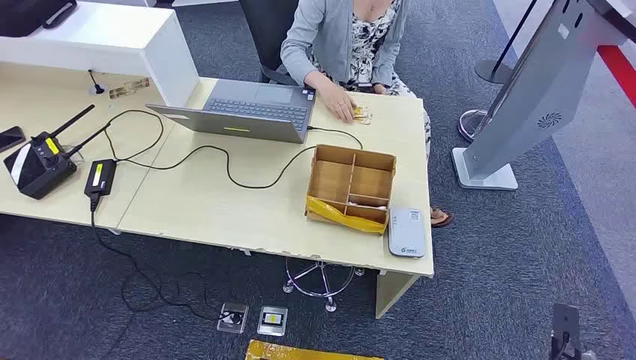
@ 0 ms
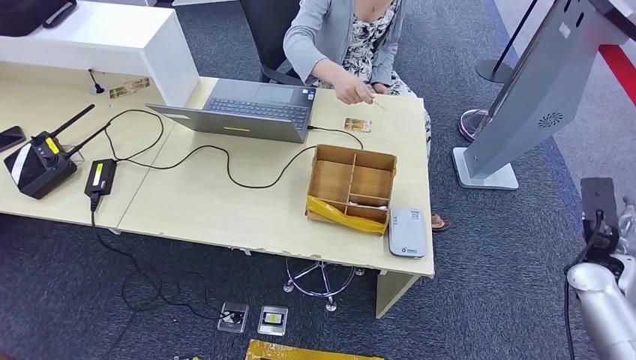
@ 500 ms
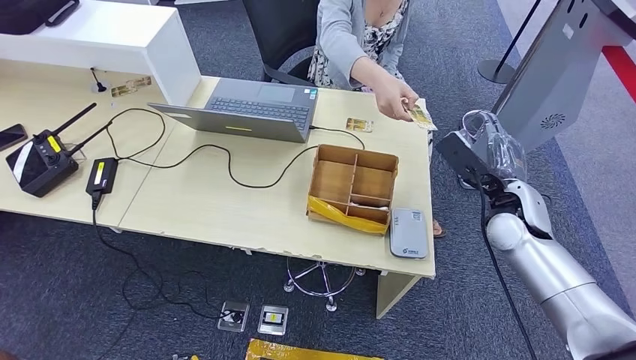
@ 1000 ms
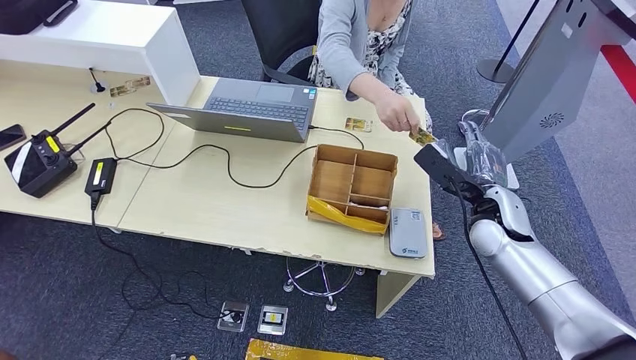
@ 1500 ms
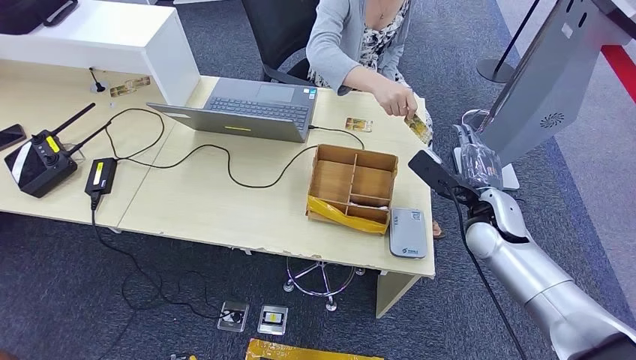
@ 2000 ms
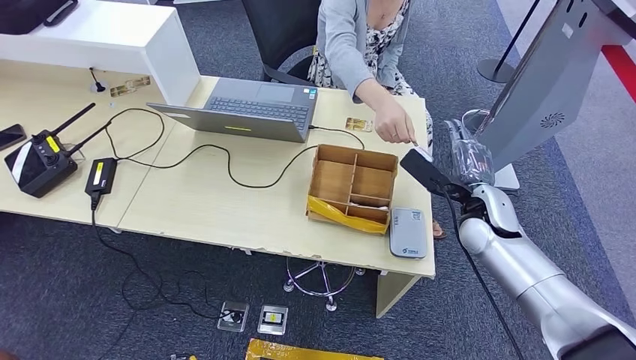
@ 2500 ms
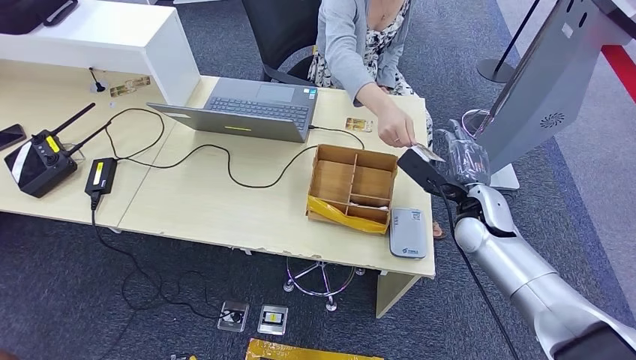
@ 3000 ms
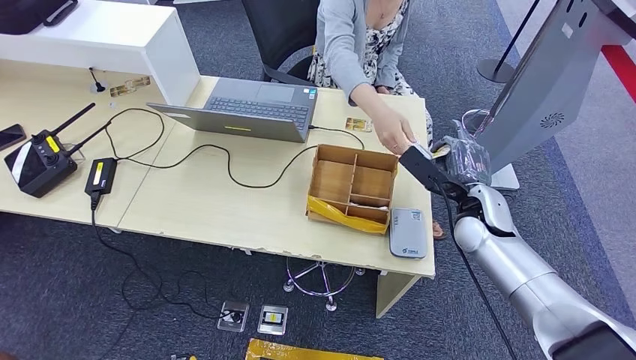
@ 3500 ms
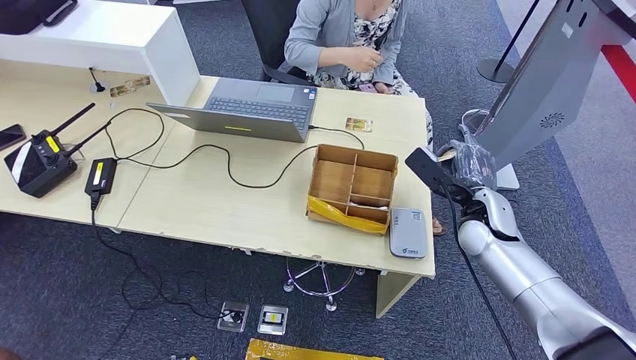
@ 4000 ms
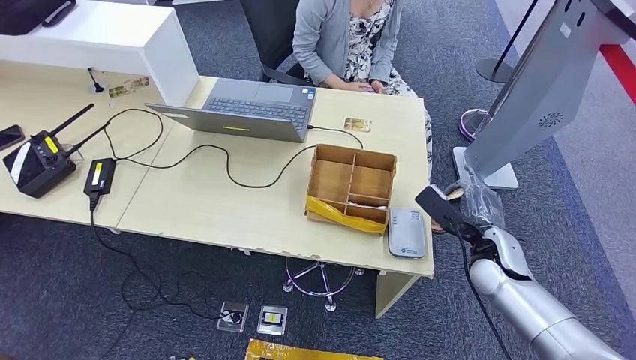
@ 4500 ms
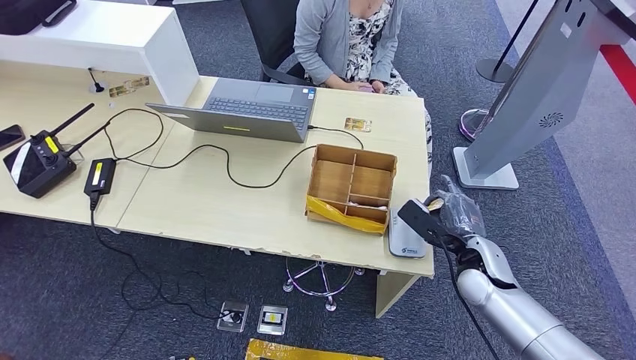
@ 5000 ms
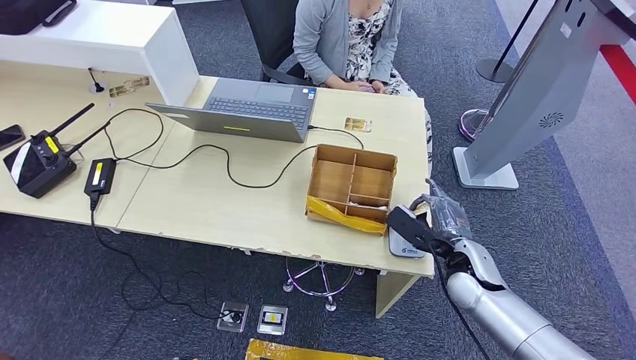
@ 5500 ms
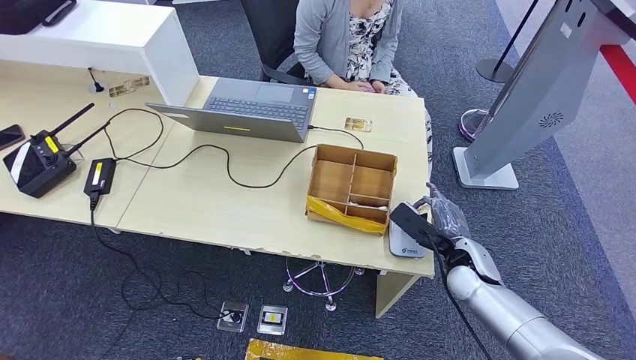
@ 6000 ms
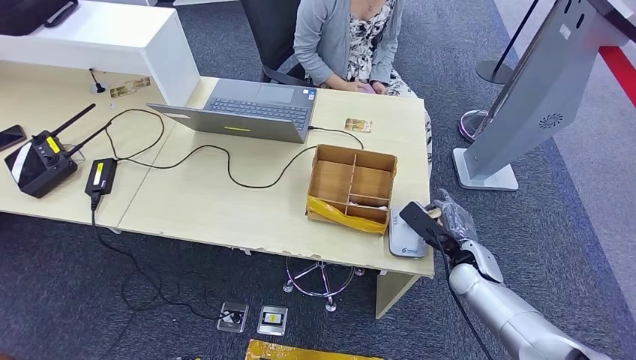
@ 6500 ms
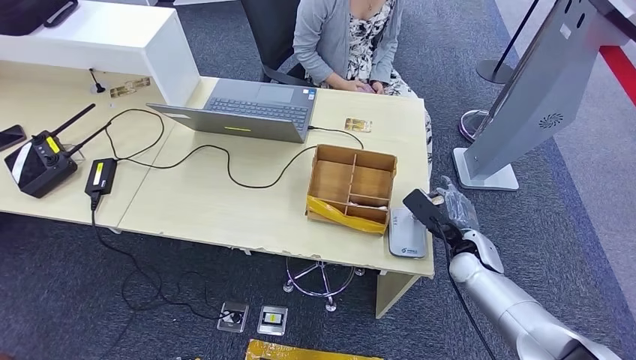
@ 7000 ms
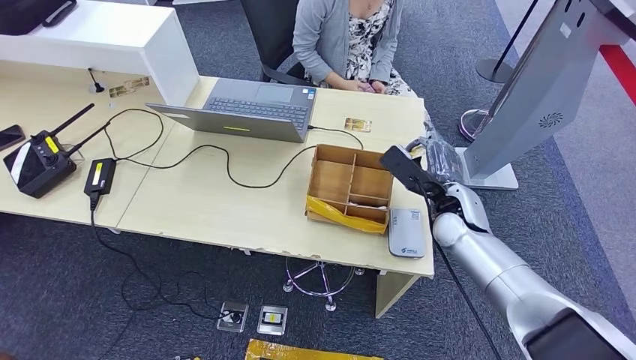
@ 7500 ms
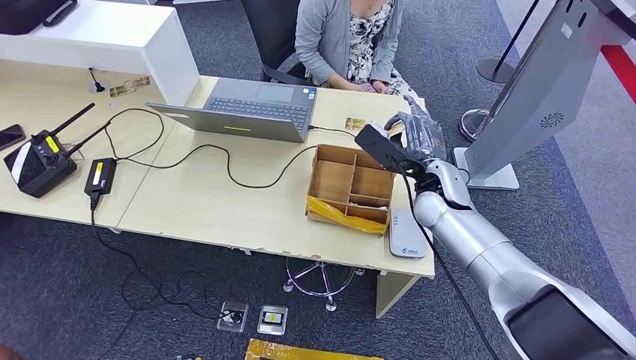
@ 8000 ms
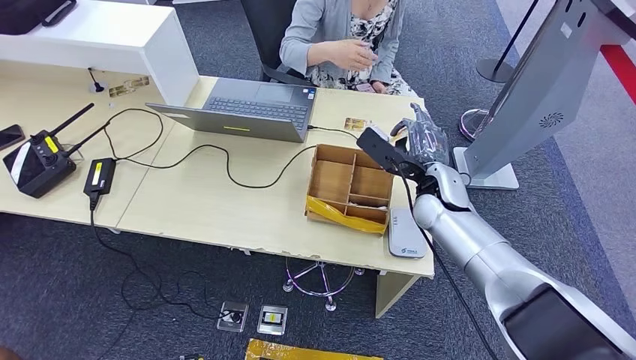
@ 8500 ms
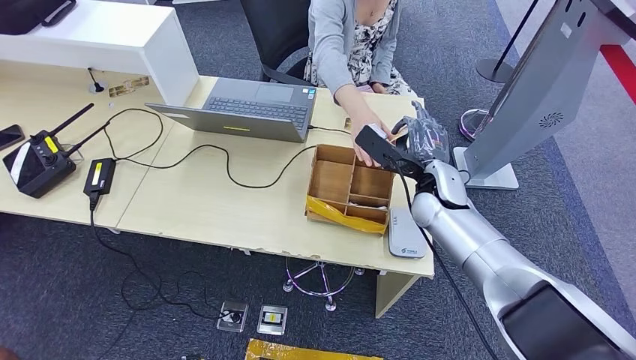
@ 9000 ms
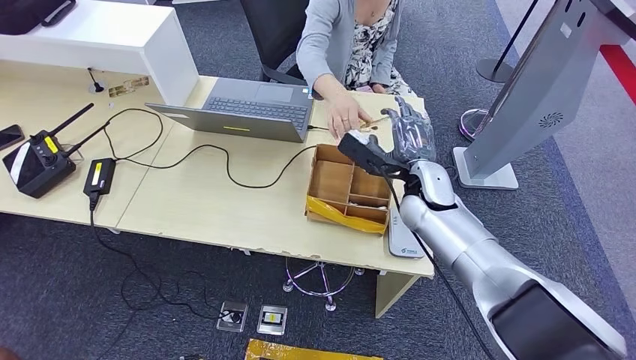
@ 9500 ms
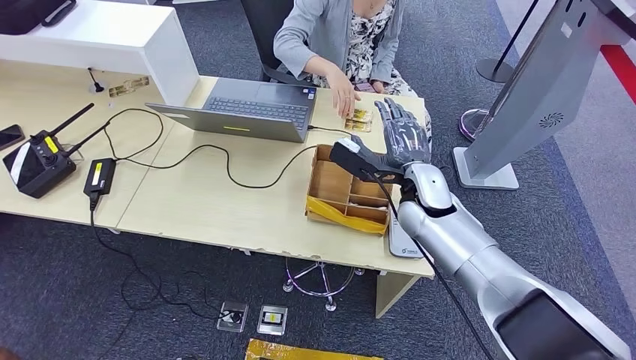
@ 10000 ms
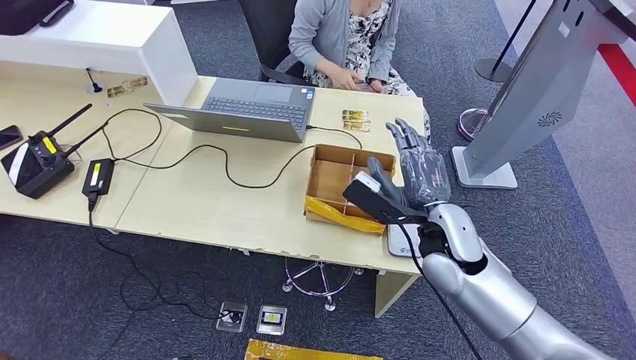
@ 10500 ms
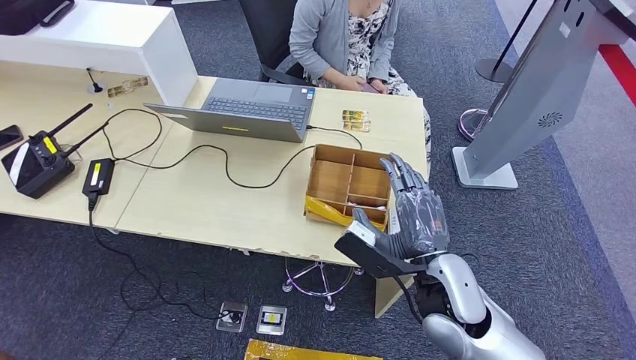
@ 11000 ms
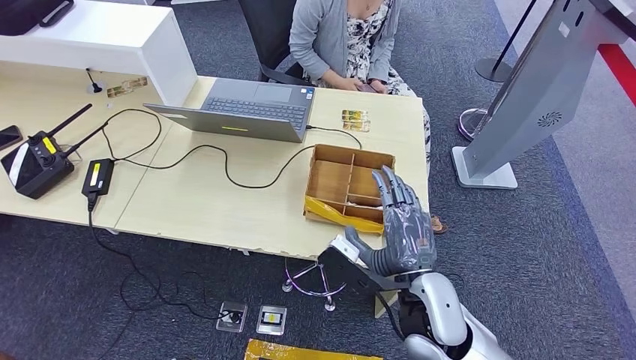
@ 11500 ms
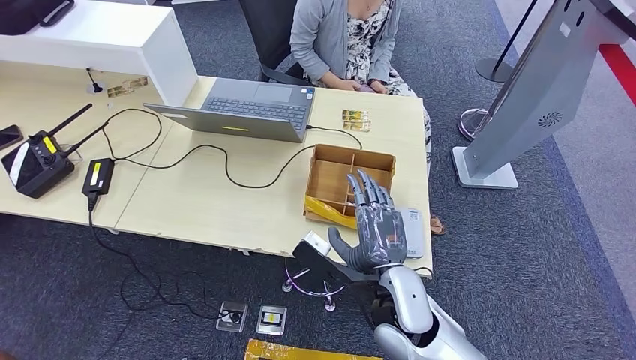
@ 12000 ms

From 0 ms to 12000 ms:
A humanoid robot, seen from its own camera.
Step, from 0 ms to 3500 ms: Take the ID card from the person's hand.
Step, from 4500 ms to 6000 ms: Place the ID card on the card reader.
Step, from 7500 ms to 9500 ms: Hand the ID card to the person.
From 2000 ms to 4000 ms: The hands stay close to where they were, moving slightly.
From 4000 ms to 6000 ms: The right hand heads downward and backward, covering roughly 10 cm.
From 6000 ms to 8000 ms: The right hand travels upward, forward and to the left by approximately 15 cm.
From 8000 ms to 10000 ms: There are only small adjustments of the hands.
From 10000 ms to 12000 ms: The right hand goes approximately 20 cm backward.

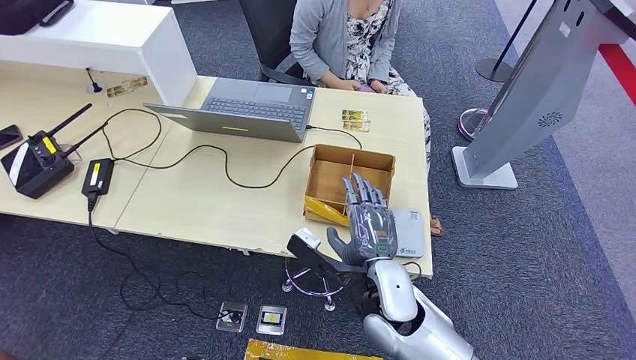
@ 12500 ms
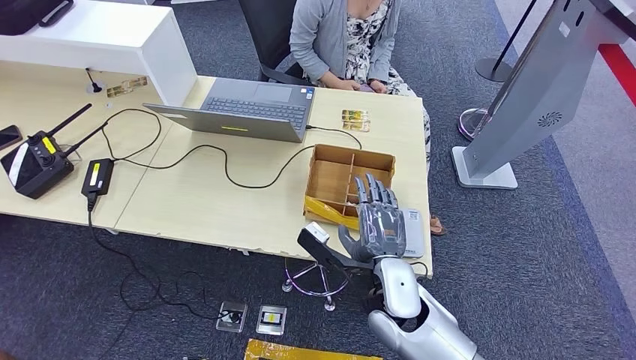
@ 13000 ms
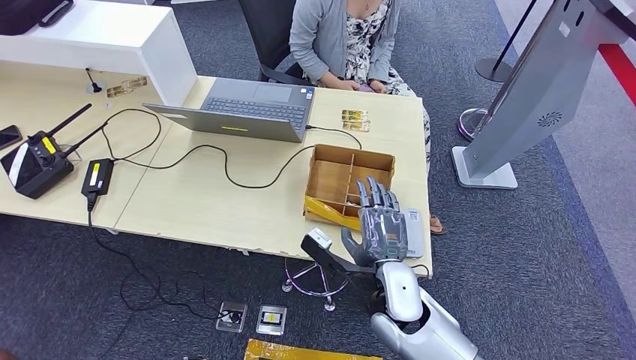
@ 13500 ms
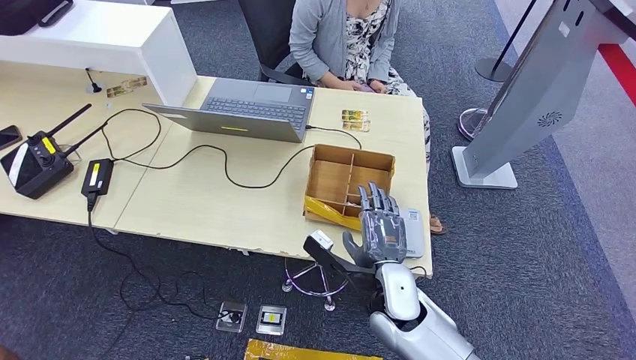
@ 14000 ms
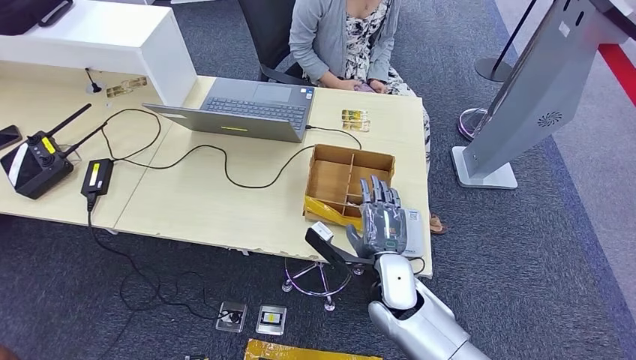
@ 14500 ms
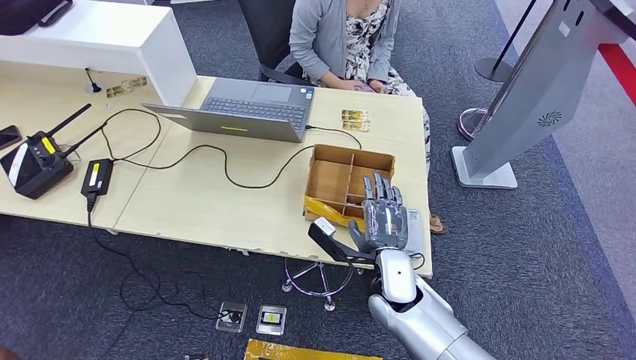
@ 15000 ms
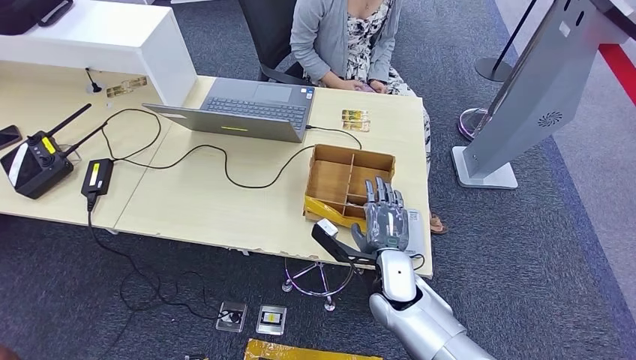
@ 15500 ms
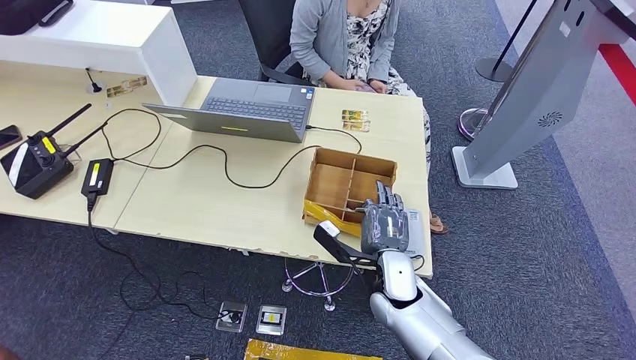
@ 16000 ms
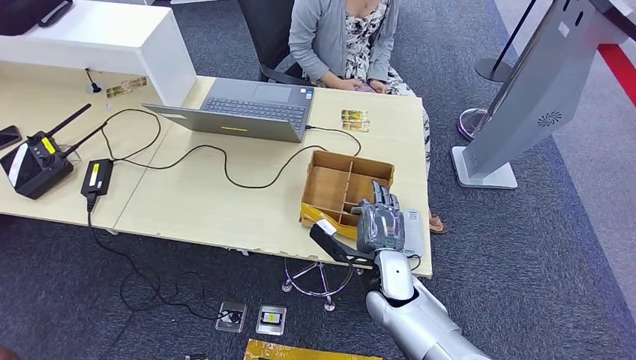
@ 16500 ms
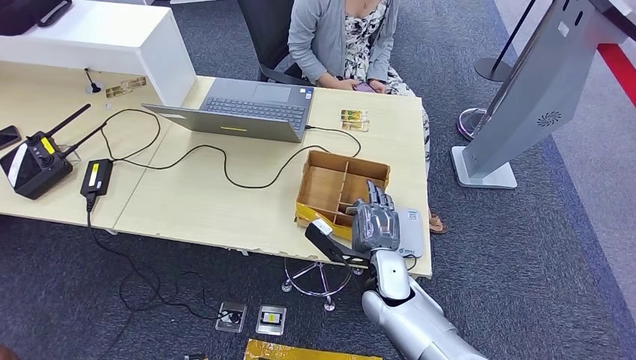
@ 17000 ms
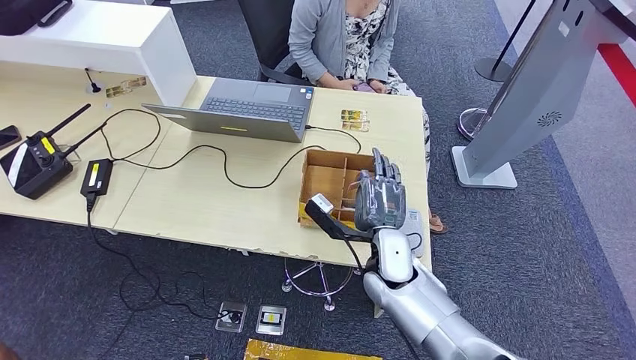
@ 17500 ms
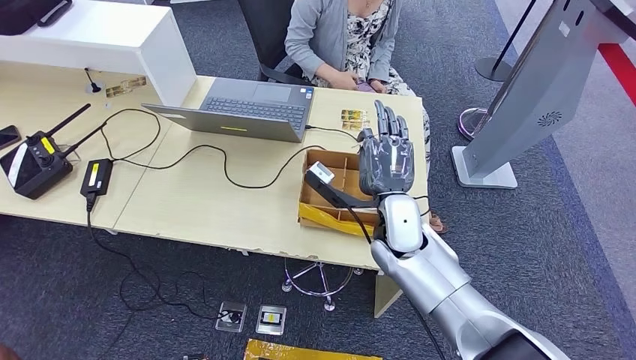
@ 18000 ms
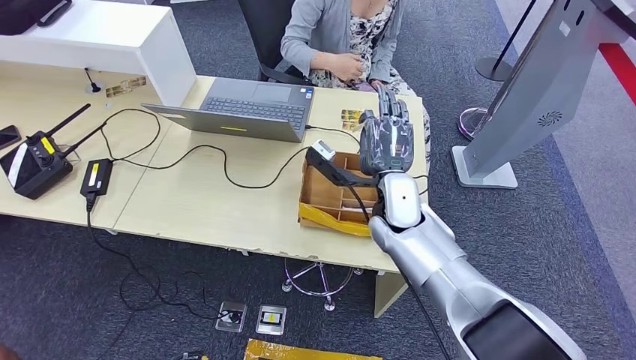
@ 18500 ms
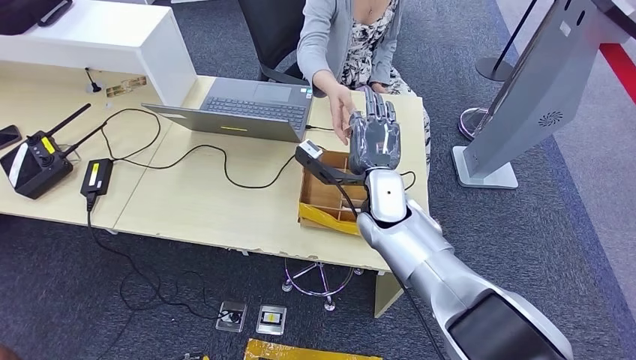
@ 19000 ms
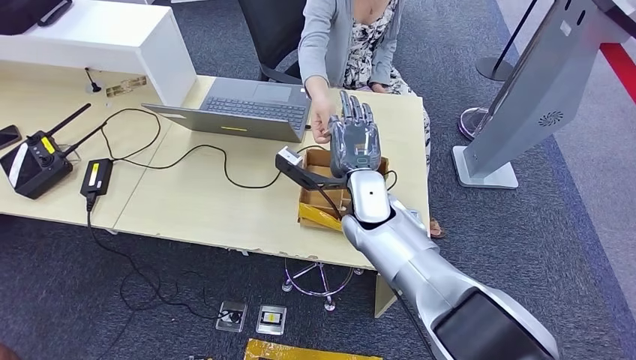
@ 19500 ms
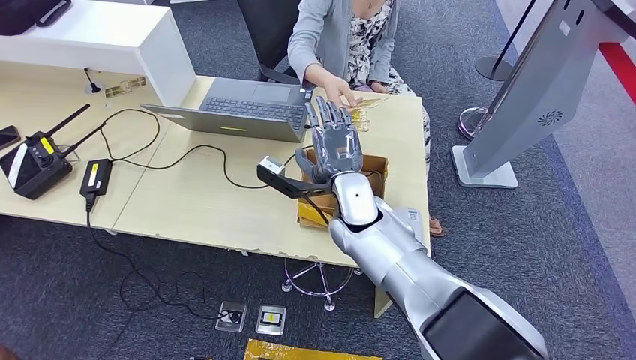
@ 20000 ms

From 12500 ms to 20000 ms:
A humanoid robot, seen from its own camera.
Step, from 17000 ms to 18000 ms: Pick up the room key from the key card box.
Step, from 19000 ms to 20000 ms: Hand the room key to the person.
From 12500 ms to 14500 ms: The right hand ends up approximately 5 cm from where it was.
From 14500 ms to 16500 ms: There are only small adjustments of the hands.
From 16500 ms to 18000 ms: The right hand shifts about 10 cm upward and forward.
From 18000 ms to 20000 ms: The right hand moves to the left, roughly 5 cm.
